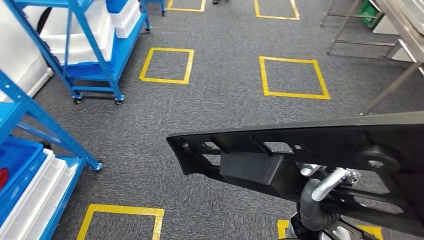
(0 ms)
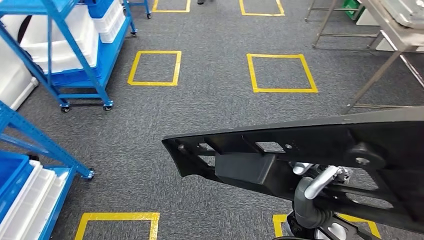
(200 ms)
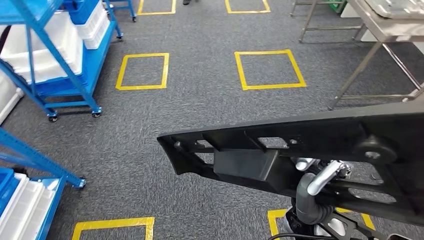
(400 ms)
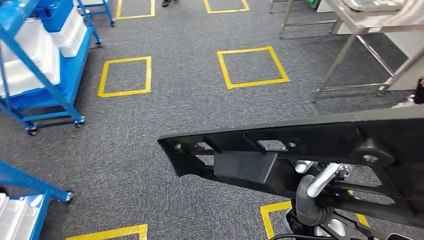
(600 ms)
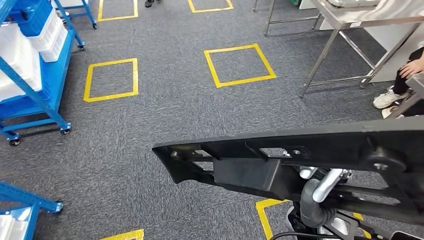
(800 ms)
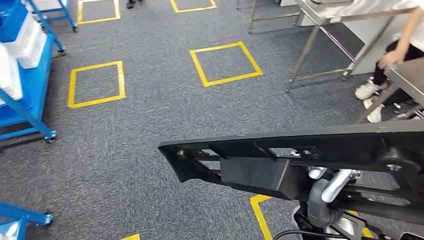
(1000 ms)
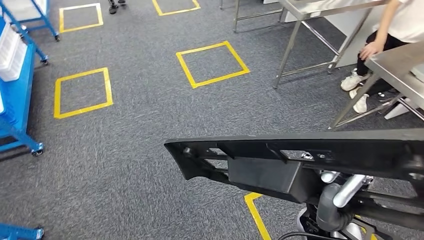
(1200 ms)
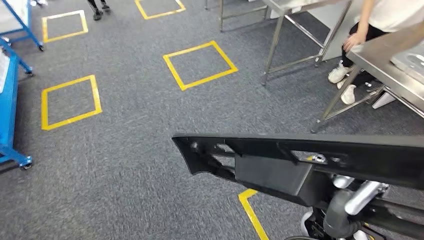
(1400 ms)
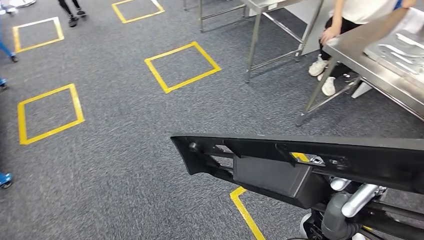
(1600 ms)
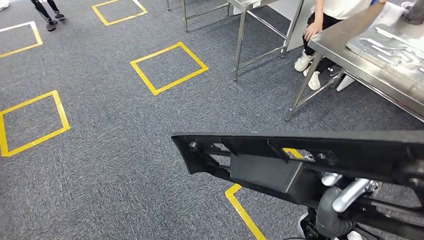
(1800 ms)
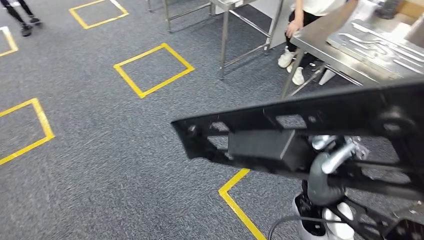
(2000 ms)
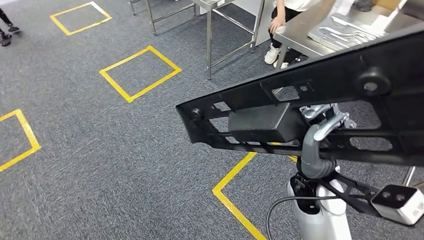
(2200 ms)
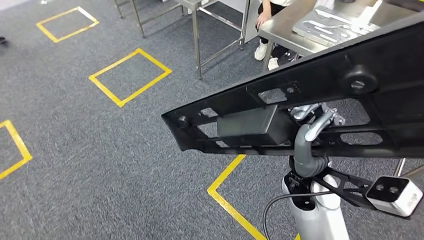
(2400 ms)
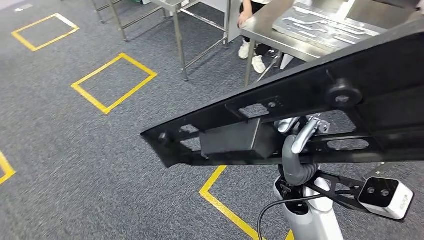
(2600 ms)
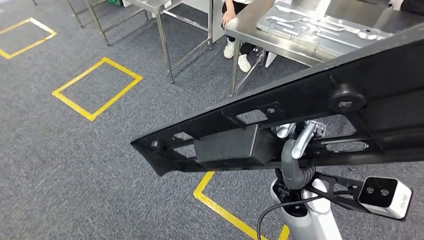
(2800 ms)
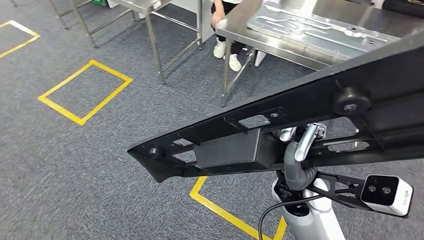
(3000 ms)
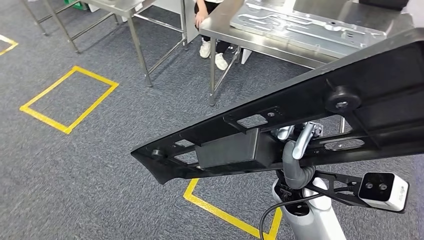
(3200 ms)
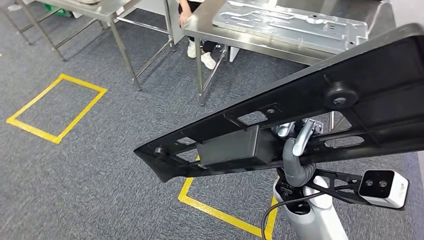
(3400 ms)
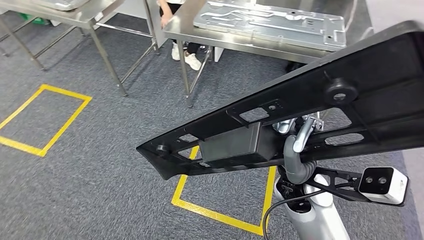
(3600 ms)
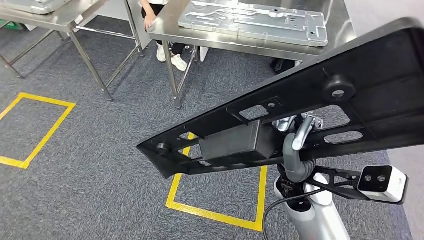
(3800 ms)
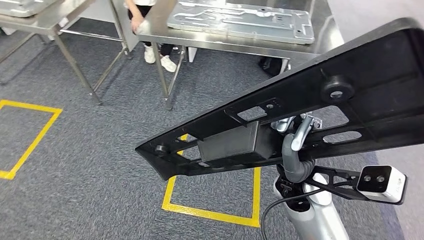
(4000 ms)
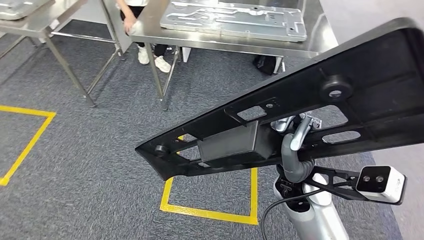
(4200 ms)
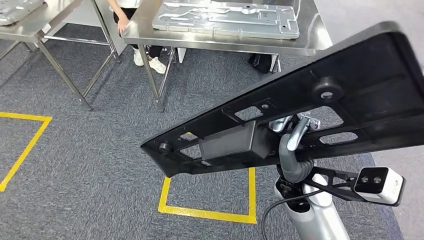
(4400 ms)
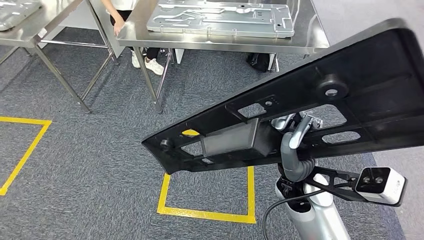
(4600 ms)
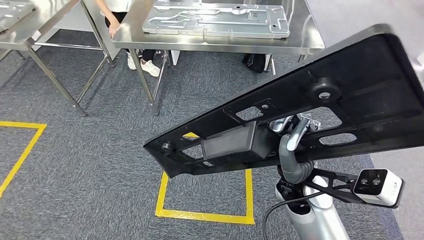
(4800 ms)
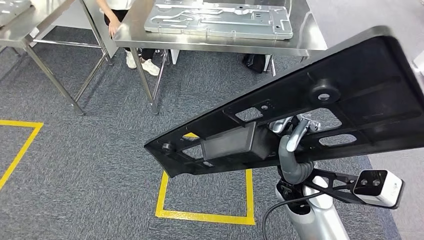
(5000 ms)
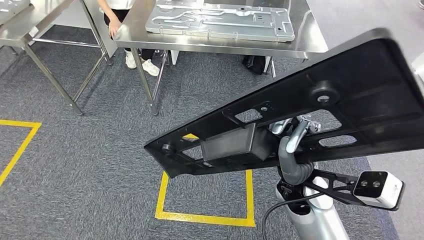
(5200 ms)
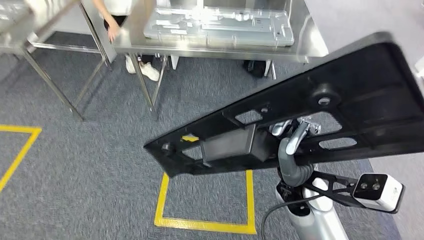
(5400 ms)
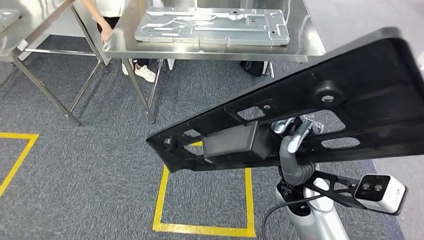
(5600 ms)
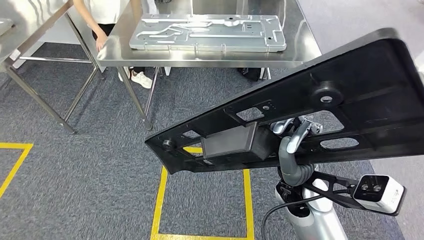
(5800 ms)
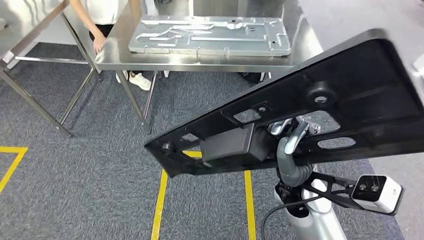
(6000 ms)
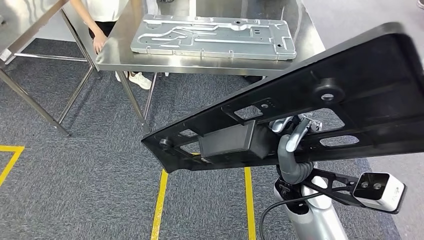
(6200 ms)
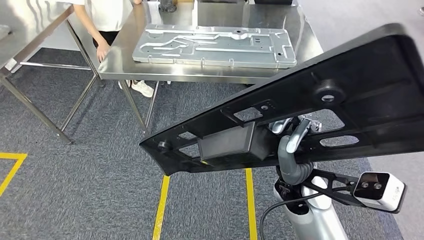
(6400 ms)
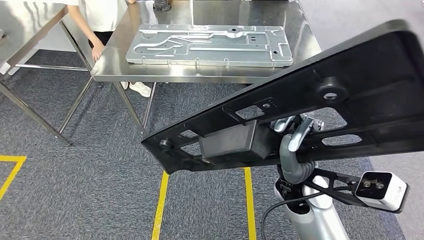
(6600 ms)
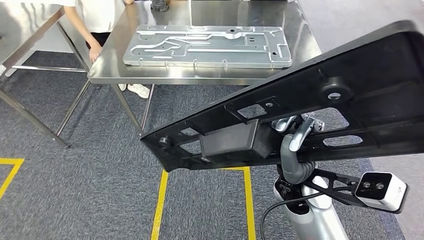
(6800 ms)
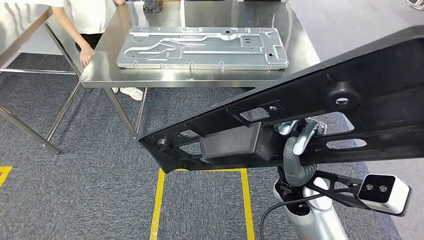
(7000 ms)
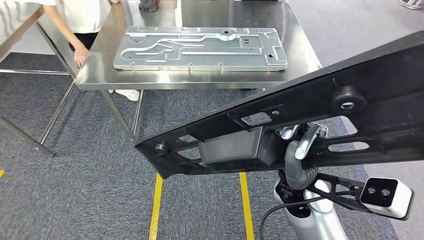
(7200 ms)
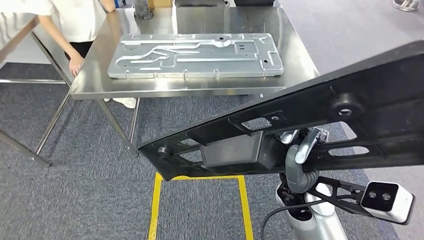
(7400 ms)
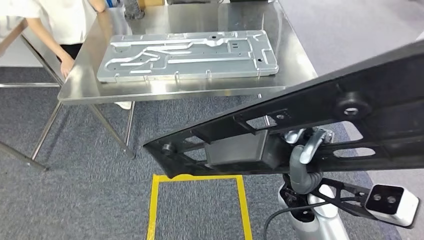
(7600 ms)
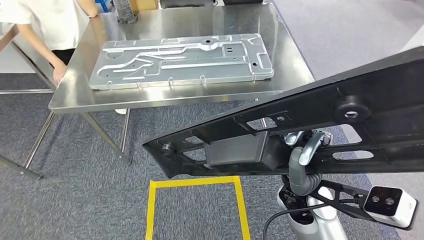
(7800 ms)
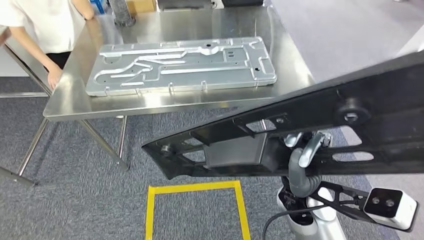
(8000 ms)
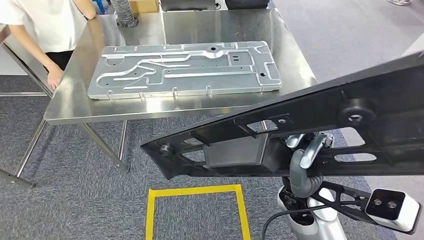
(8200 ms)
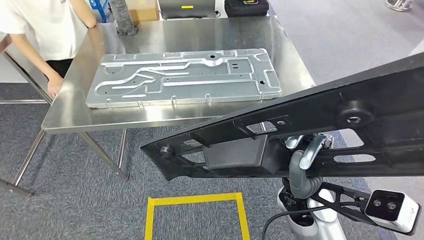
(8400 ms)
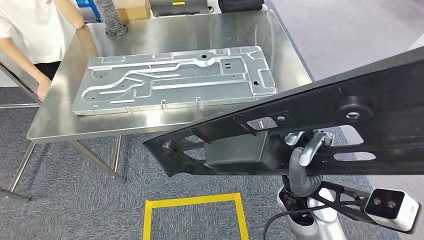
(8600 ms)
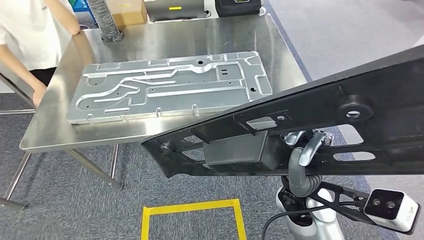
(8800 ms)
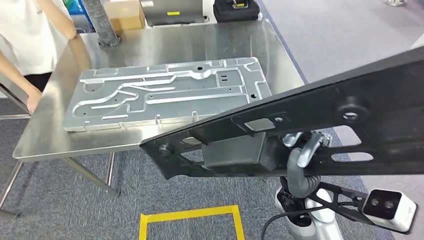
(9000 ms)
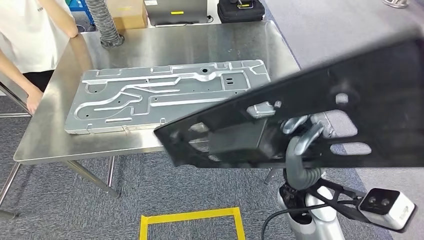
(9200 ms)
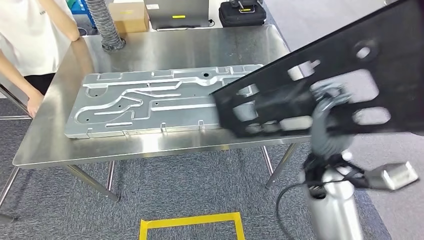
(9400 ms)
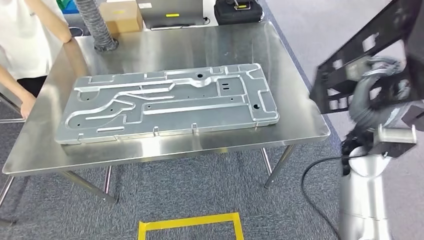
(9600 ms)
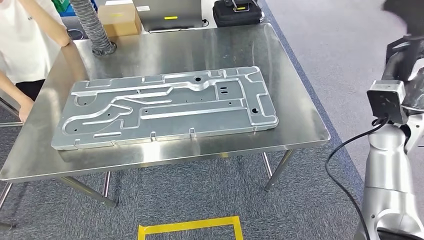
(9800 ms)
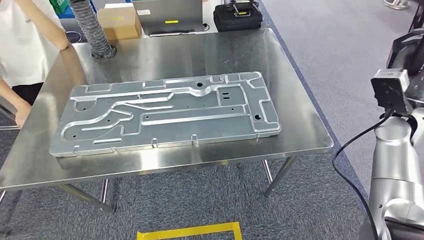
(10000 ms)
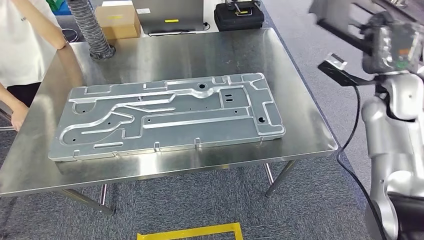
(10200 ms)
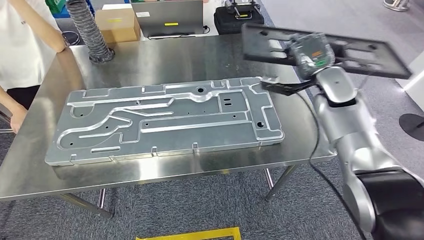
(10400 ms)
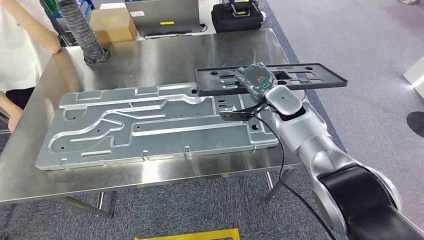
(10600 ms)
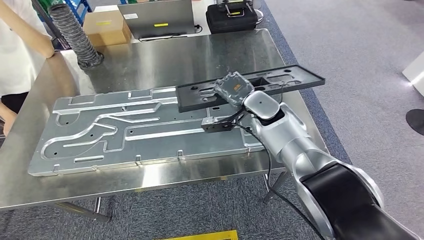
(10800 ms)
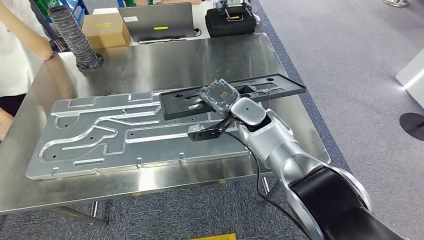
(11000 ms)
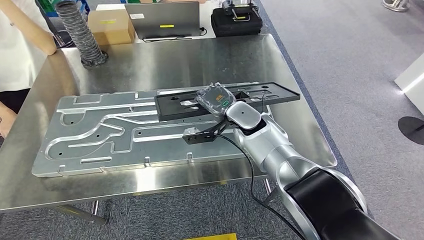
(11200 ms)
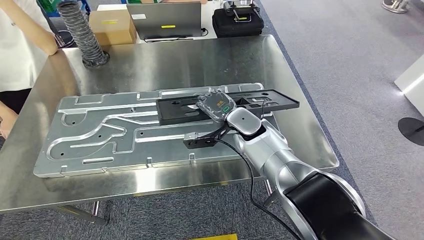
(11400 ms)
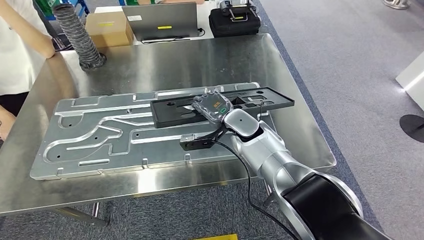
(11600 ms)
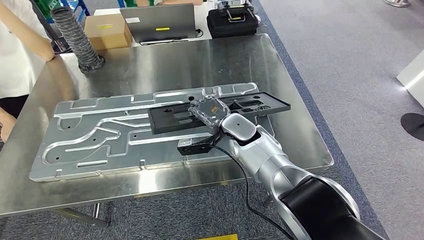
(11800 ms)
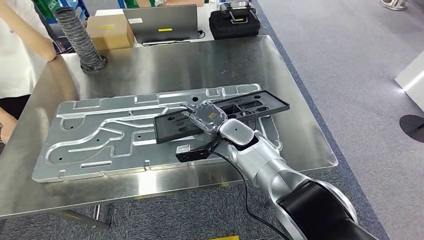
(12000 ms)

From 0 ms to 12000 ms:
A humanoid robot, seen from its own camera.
Step, from 0 ms to 9800 ms: Move the large material to the workbench.

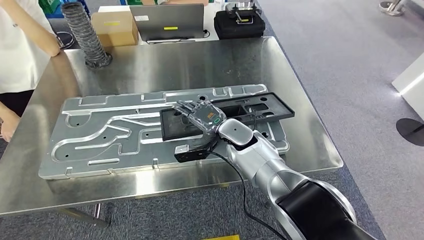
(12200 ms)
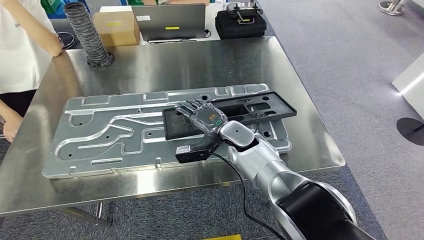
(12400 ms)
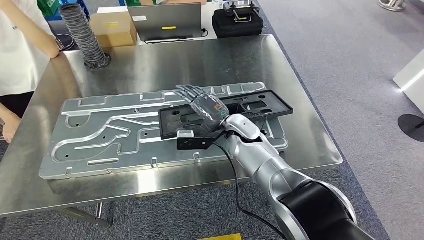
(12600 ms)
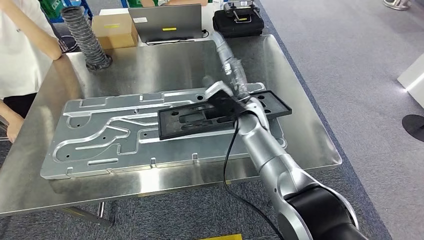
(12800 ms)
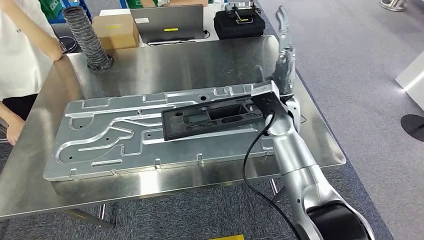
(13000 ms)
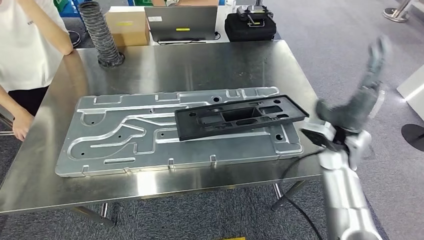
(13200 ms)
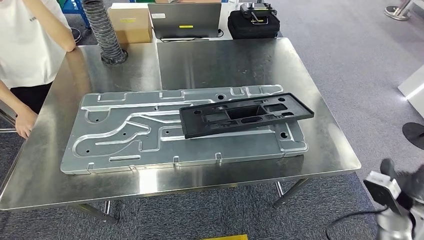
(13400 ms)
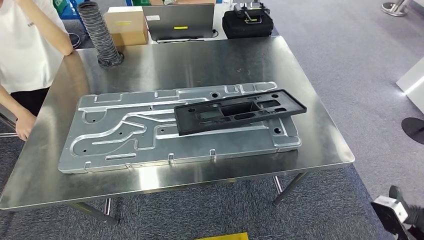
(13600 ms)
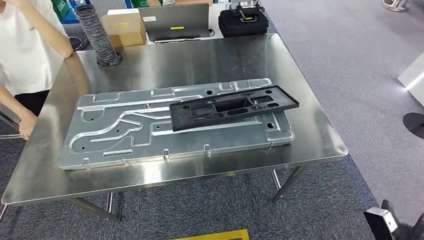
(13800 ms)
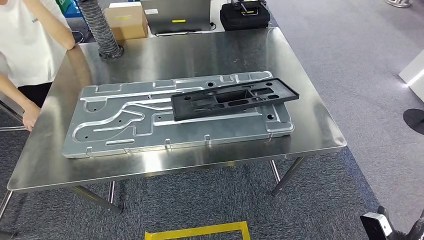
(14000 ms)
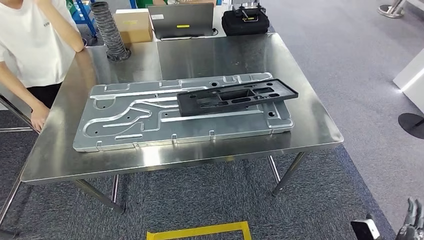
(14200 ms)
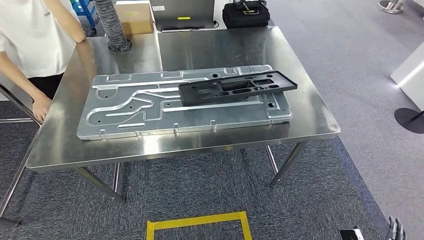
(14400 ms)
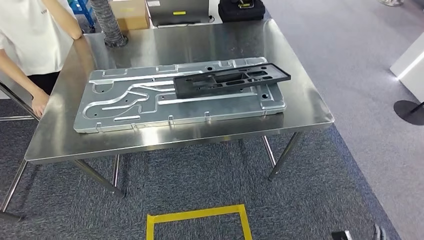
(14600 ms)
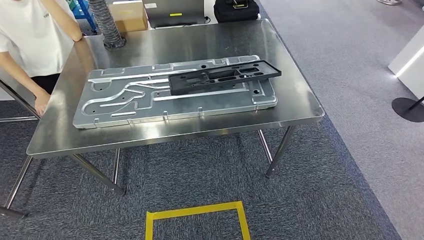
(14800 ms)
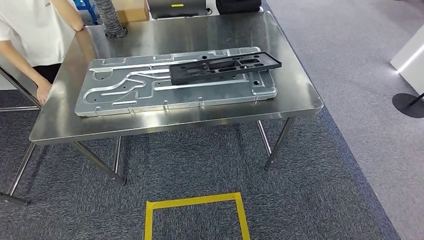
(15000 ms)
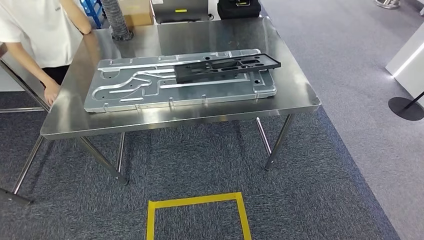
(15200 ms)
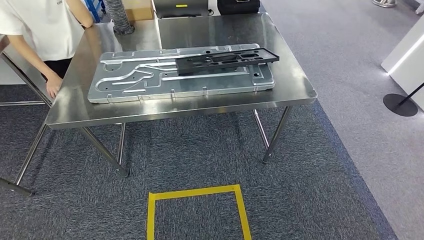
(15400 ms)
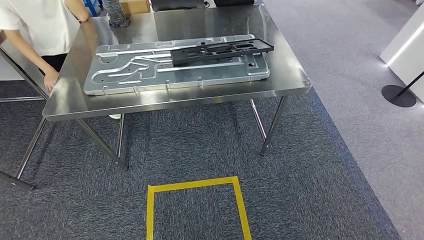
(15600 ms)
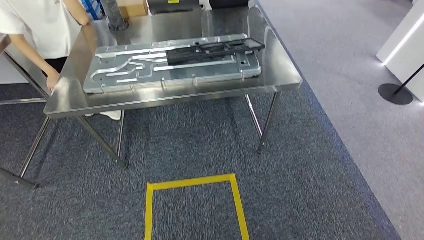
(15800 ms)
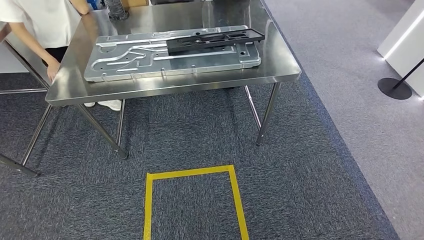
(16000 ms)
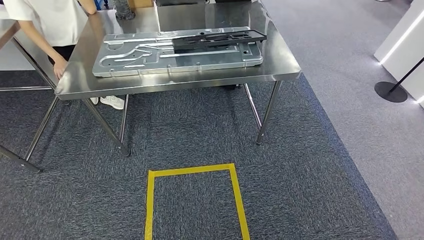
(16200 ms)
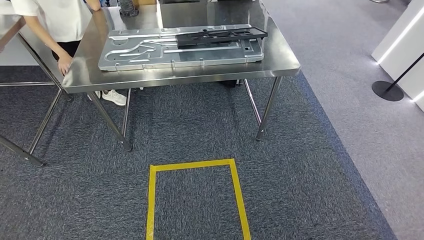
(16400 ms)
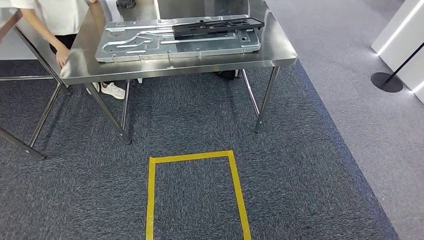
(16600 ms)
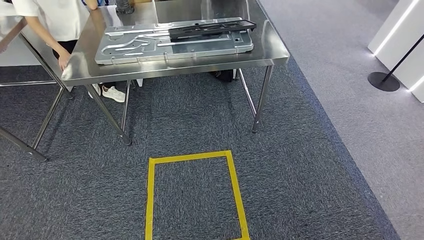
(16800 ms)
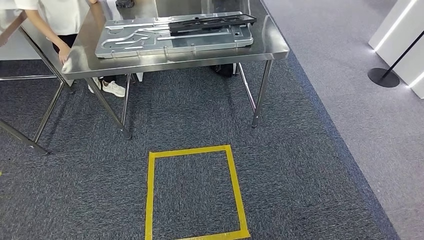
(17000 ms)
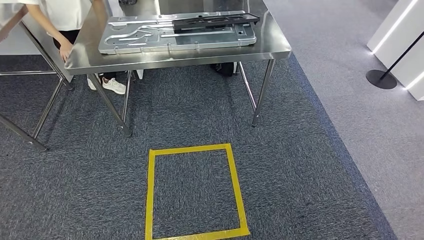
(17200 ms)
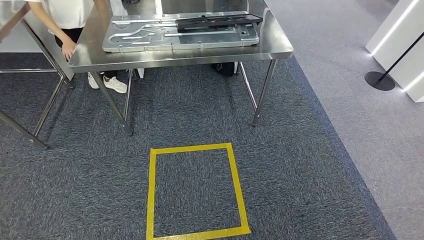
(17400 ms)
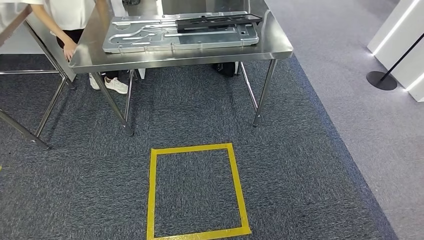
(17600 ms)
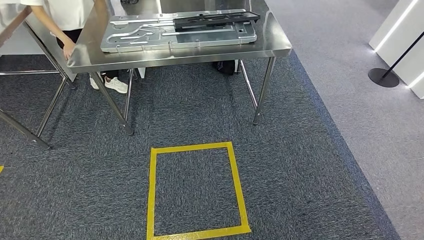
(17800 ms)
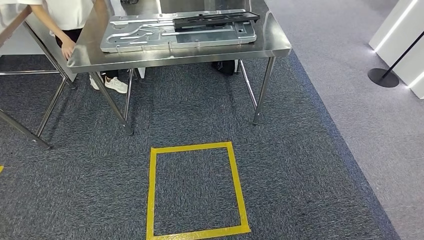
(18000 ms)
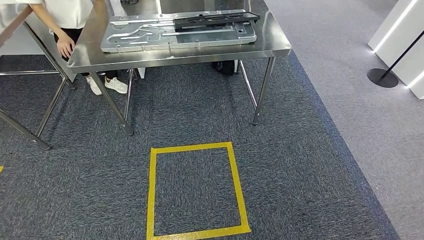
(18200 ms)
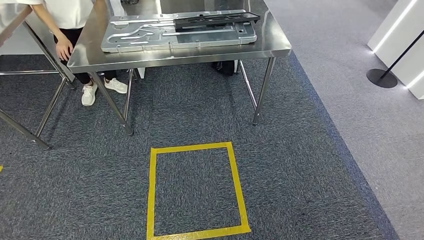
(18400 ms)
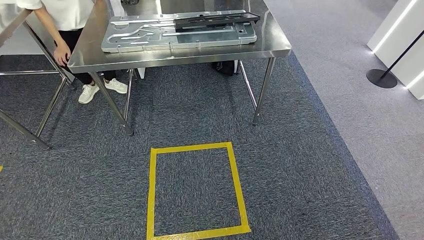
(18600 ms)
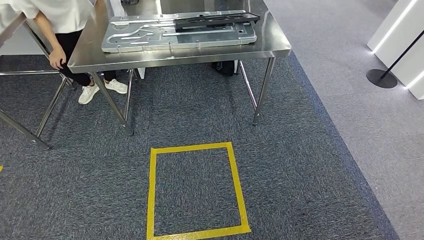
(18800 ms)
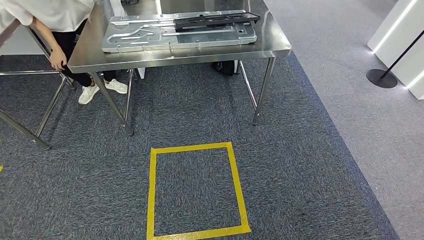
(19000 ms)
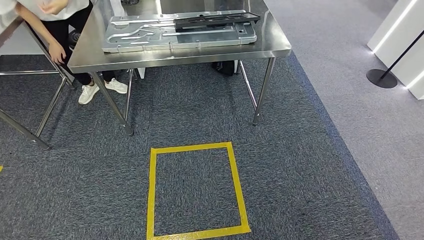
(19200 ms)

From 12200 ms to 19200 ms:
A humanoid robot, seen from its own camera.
Step, from 12200 ms to 14200 ms: Insert the large material into the corresponding slot on the workbench.
From 17800 ms to 19200 ms: There are only small adjustments of the hands.
